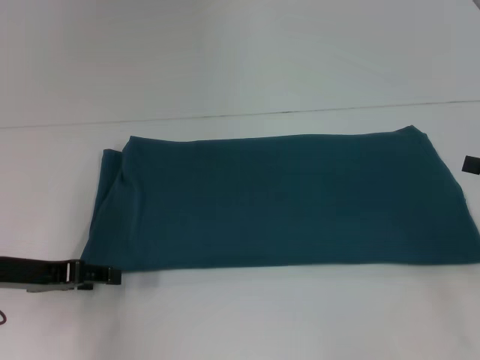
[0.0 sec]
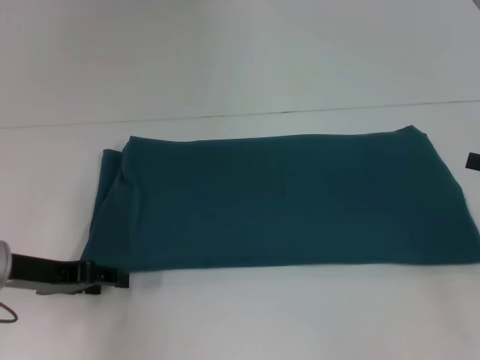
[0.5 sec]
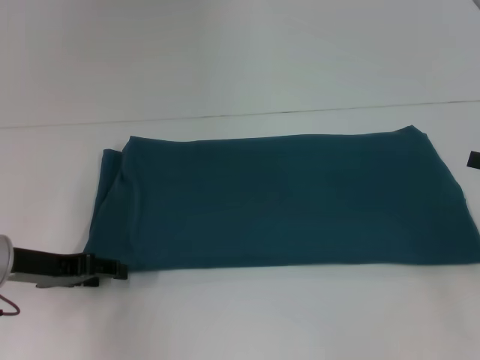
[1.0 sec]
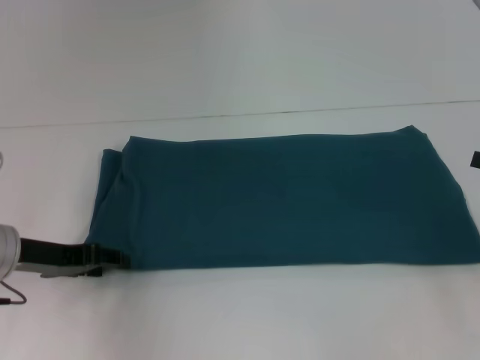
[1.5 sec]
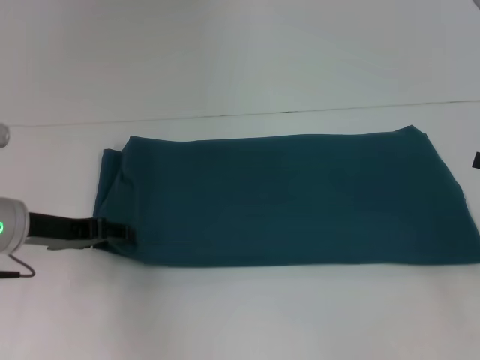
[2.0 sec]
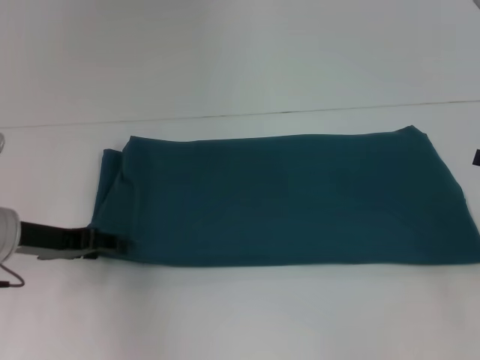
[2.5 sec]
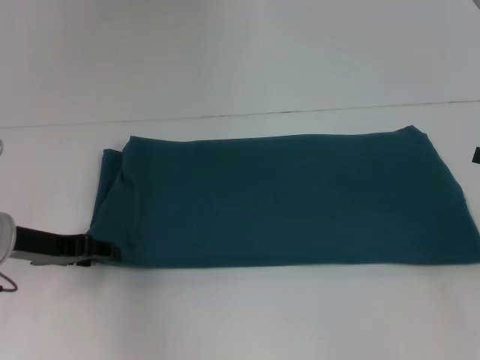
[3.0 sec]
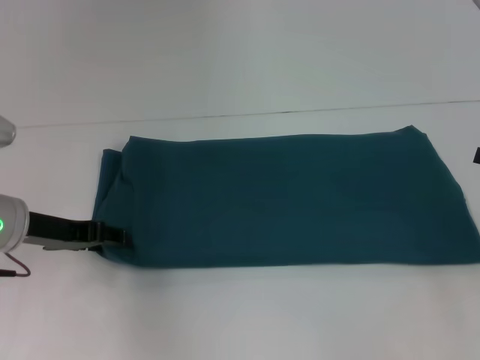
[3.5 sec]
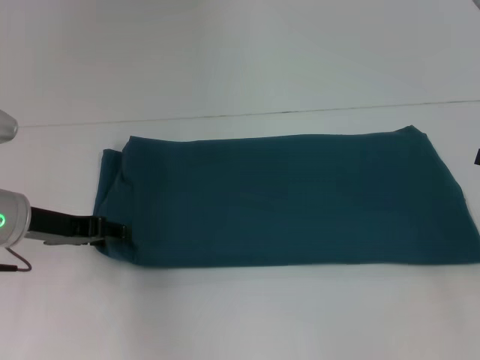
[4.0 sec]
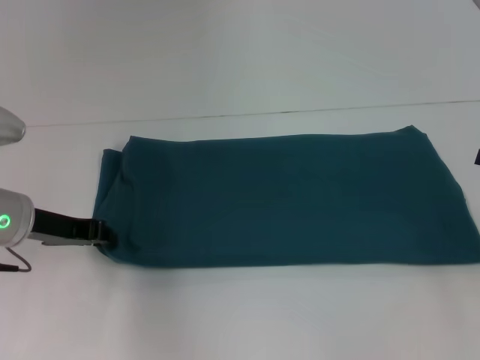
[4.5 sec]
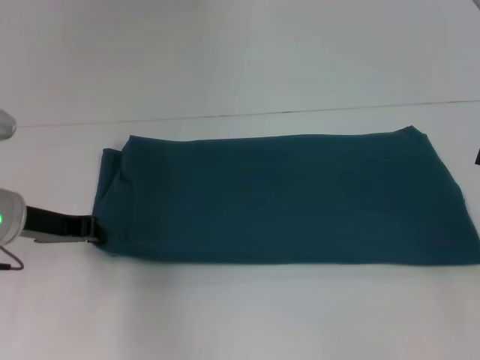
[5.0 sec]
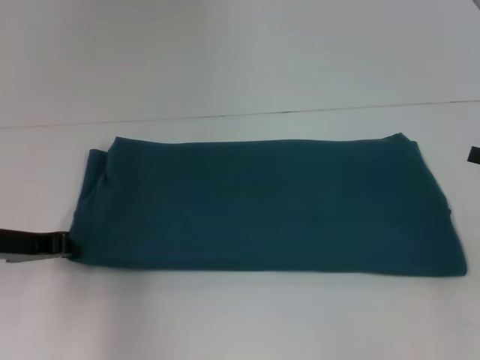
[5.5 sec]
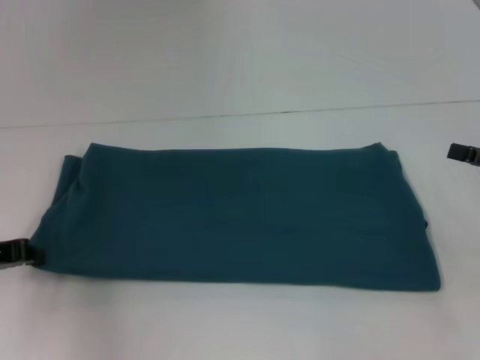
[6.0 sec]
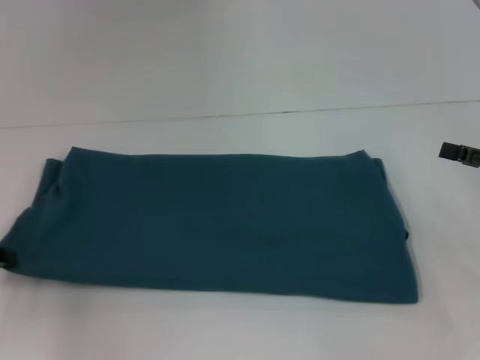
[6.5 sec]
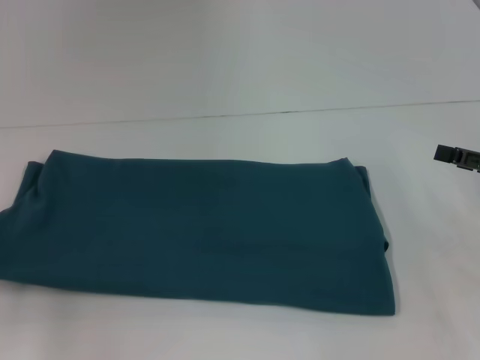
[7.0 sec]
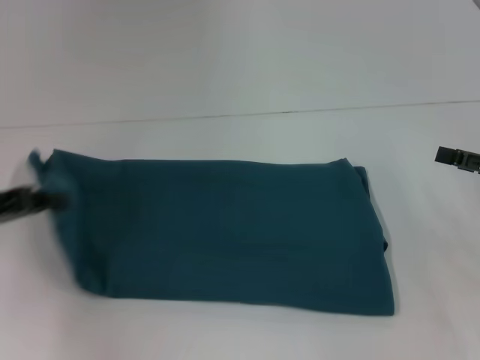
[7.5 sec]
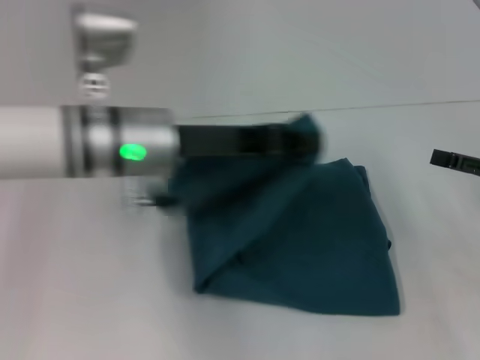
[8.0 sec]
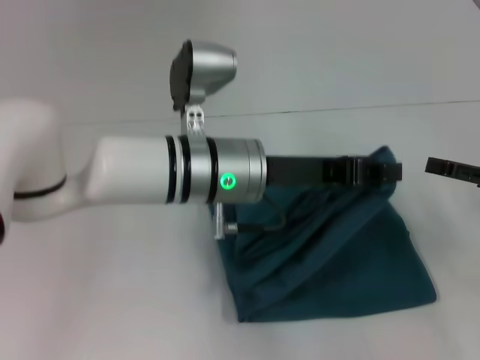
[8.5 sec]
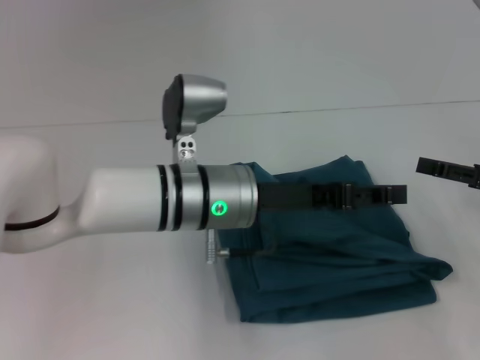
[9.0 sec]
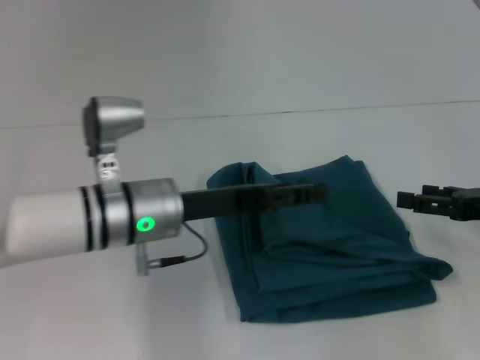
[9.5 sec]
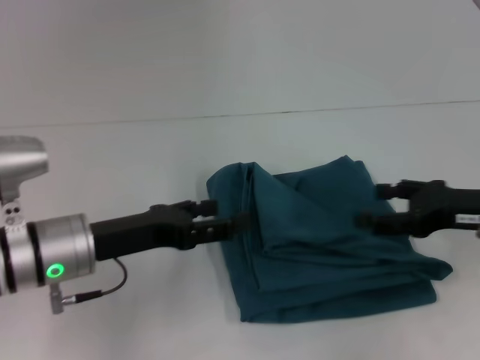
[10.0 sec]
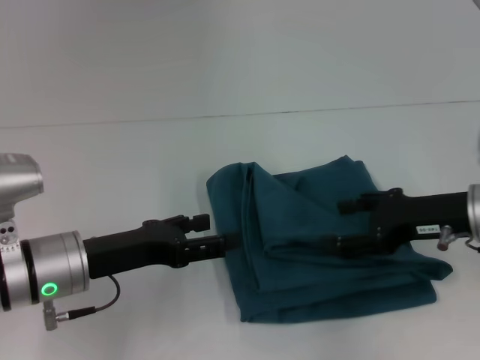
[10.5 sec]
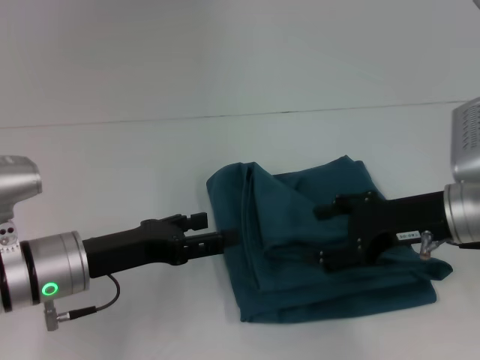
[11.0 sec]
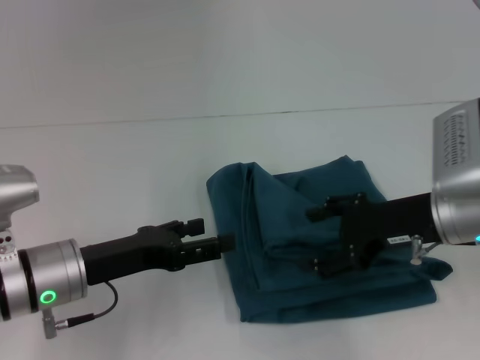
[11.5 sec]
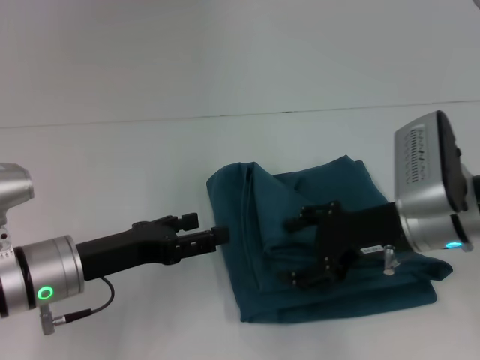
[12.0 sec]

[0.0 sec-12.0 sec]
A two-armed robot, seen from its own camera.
Step, 0.0 sec to 9.0 sec: Fold the clothes to the left.
0.0 sec to 4.0 sec: There are only small adjustments of the grippers.
4.0 sec to 6.0 sec: The left gripper heads to the left, covering approximately 5 cm, and closes.
6.0 sec to 8.0 sec: The left gripper is displaced to the right by about 20 cm.
8.0 sec to 10.0 sec: The left gripper is displaced downward, to the left and backward by roughly 15 cm, and opens up. The right gripper shifts some 5 cm to the left.
10.0 sec to 12.0 sec: The right gripper travels to the left by roughly 10 cm.

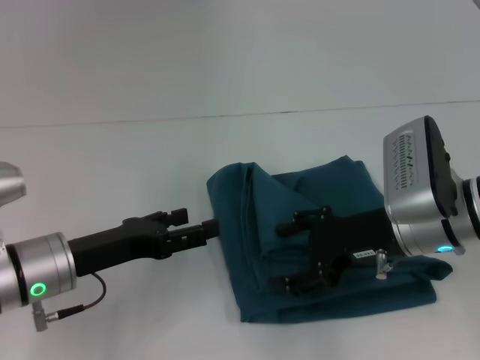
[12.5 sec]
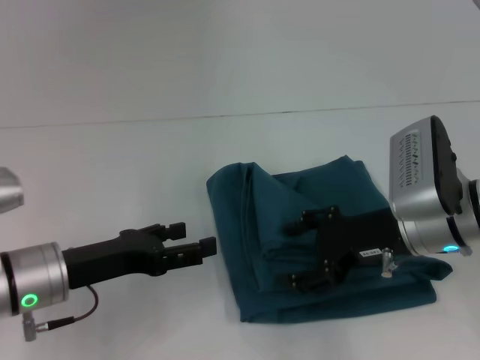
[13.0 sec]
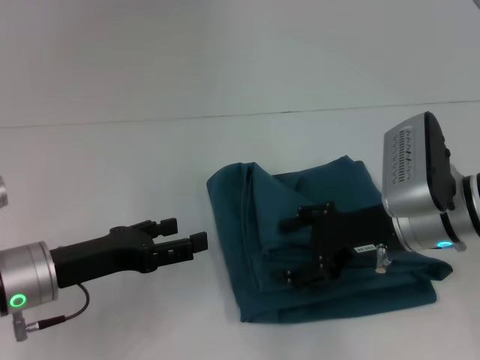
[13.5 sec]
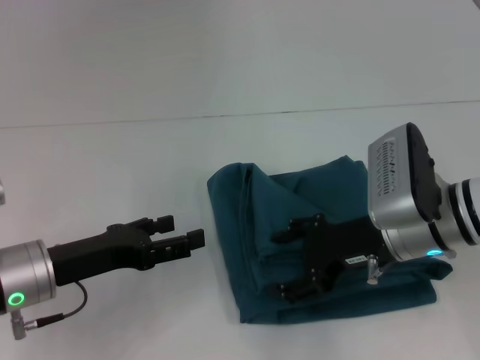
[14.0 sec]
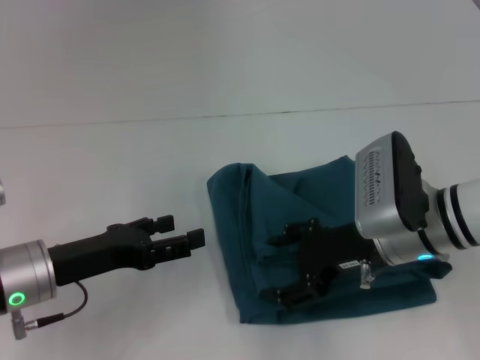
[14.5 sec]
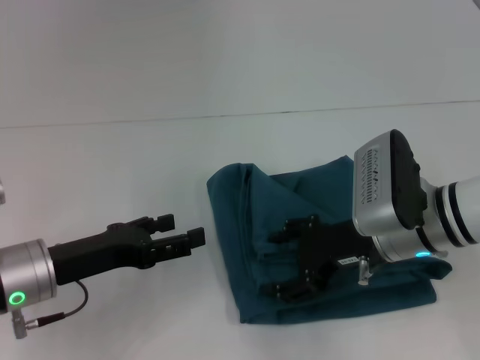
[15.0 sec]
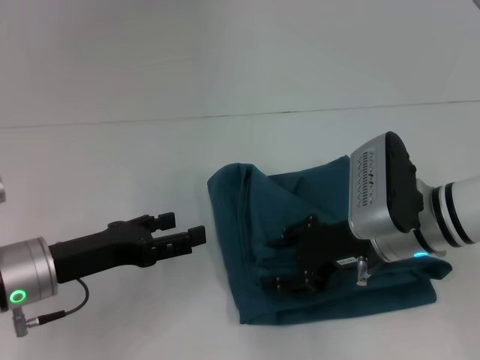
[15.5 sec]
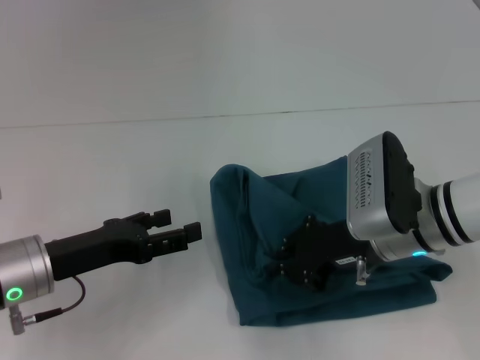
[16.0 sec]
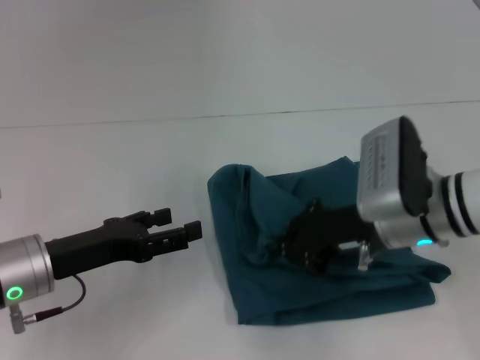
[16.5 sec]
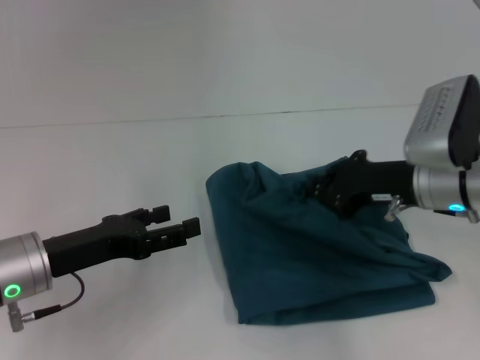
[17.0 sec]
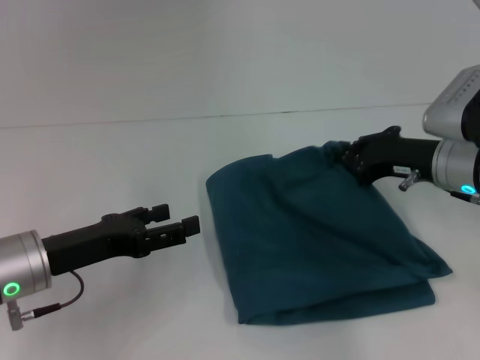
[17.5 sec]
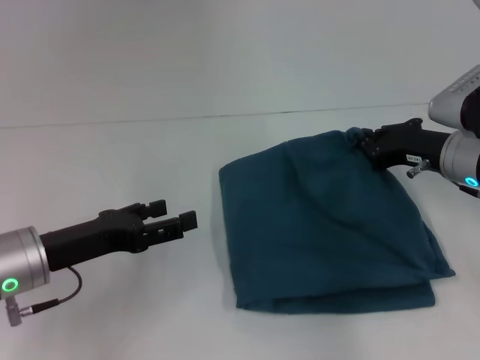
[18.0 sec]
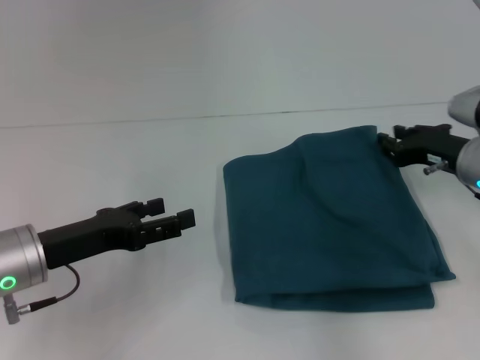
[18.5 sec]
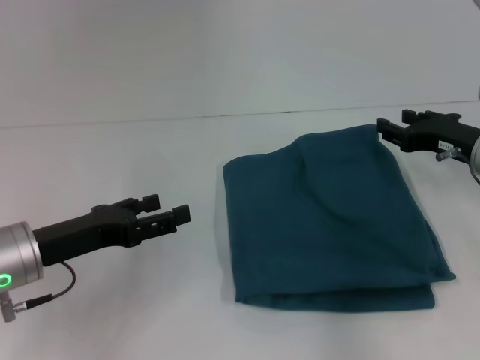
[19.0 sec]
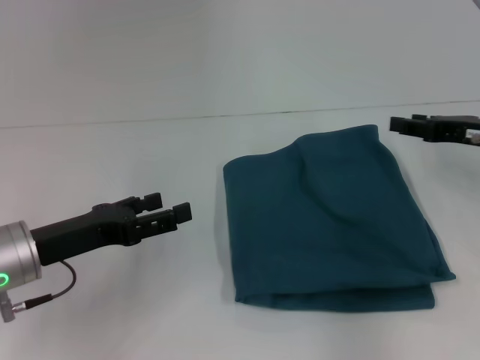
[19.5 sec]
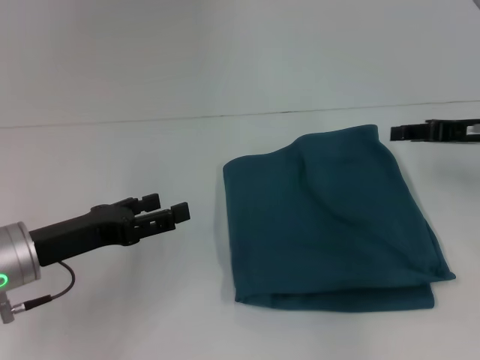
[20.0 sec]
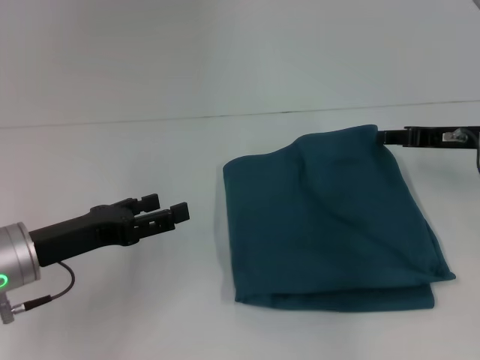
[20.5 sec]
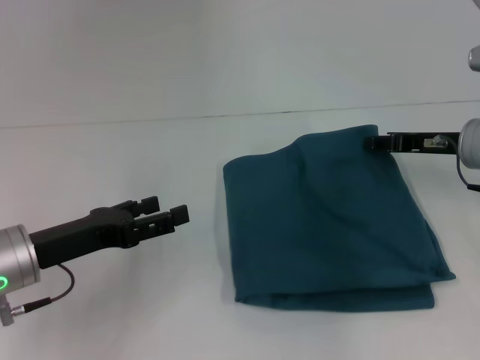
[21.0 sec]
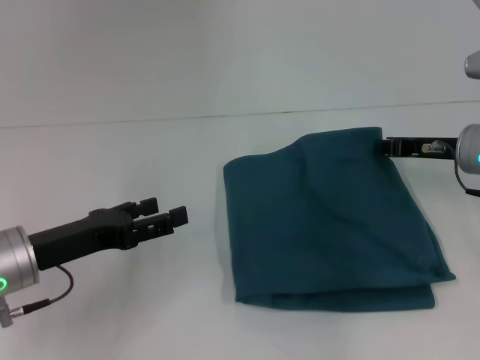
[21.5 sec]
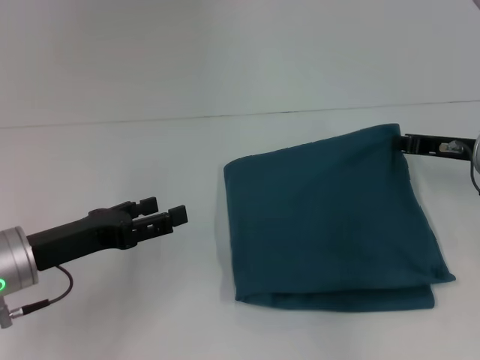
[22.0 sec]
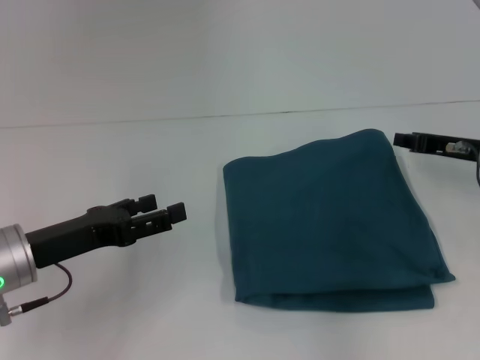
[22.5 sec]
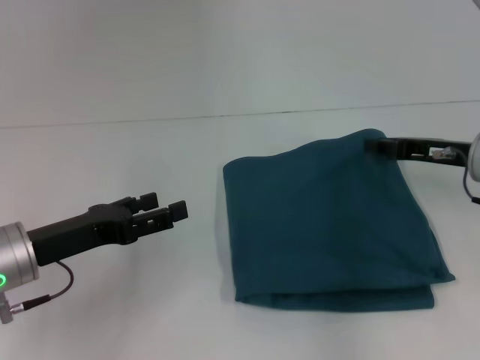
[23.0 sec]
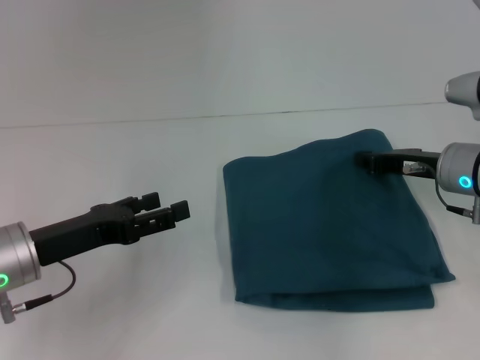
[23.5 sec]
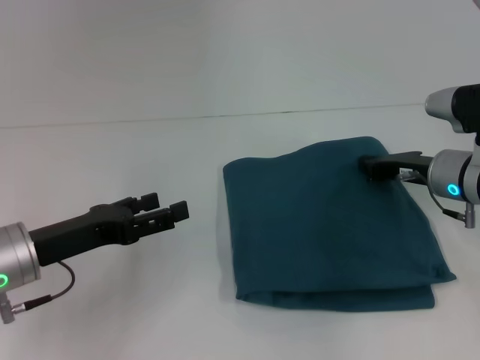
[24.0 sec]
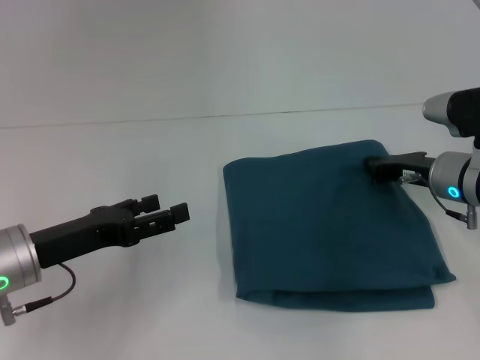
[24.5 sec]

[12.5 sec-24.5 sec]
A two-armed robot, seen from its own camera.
12.5 sec to 14.5 sec: The grippers stay close to where they were, moving slightly.
14.5 sec to 16.5 sec: The right gripper closes up.
16.5 sec to 18.5 sec: The right gripper is displaced to the right by roughly 10 cm.
20.5 sec to 22.5 sec: The right gripper closes up.
22.5 sec to 24.5 sec: The right gripper ends up roughly 5 cm from where it was, and opens, then closes once more.

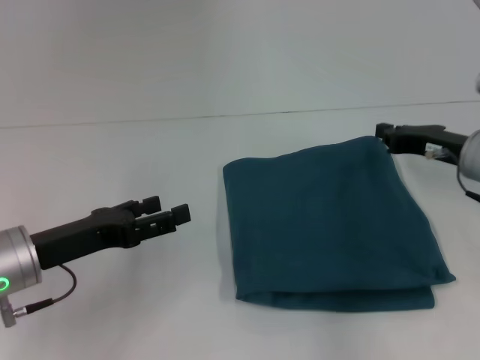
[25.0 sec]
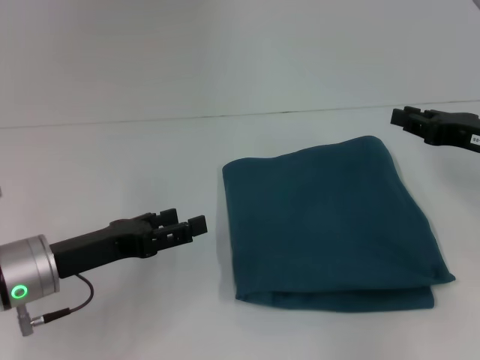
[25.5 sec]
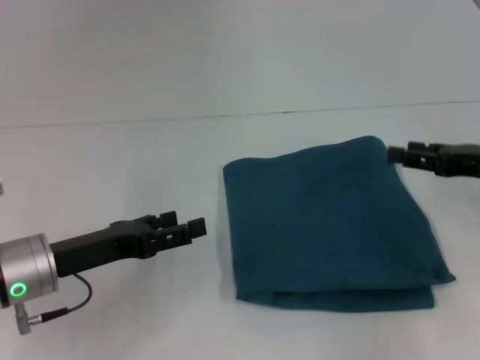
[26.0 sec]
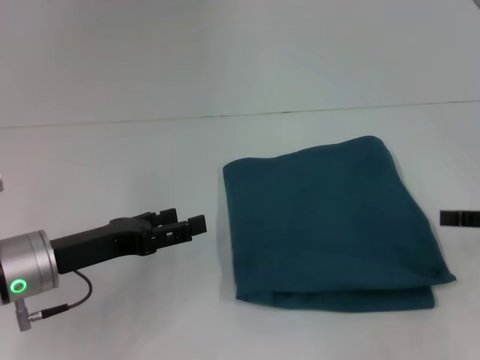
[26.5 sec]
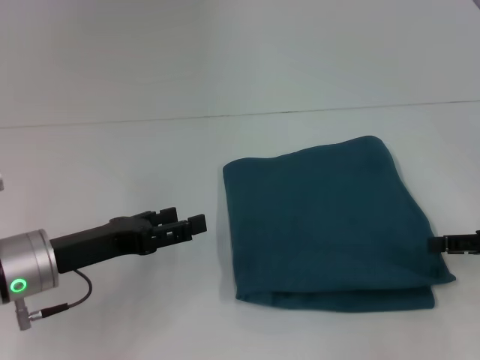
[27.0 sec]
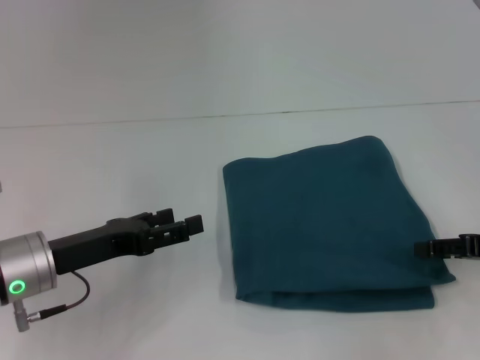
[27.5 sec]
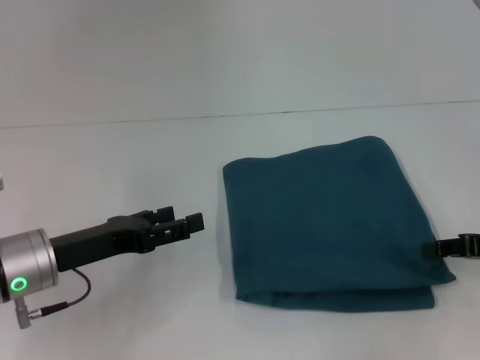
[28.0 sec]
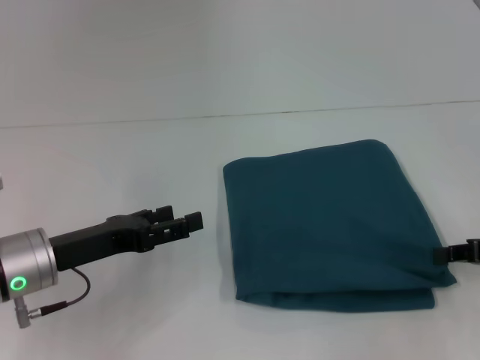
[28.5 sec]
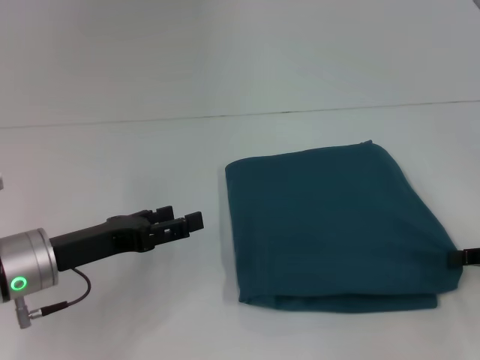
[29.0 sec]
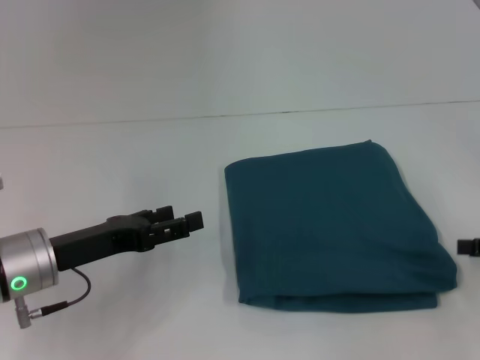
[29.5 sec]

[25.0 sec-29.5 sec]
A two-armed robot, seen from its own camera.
25.0 sec to 27.0 sec: The right gripper heads backward and to the right, covering some 10 cm, and opens up.
27.0 sec to 29.5 sec: The right gripper closes up.
